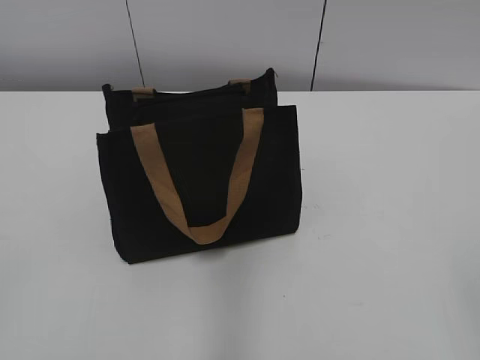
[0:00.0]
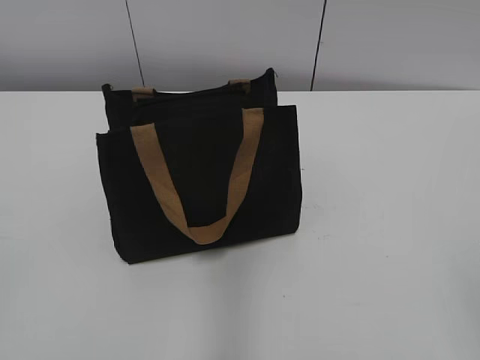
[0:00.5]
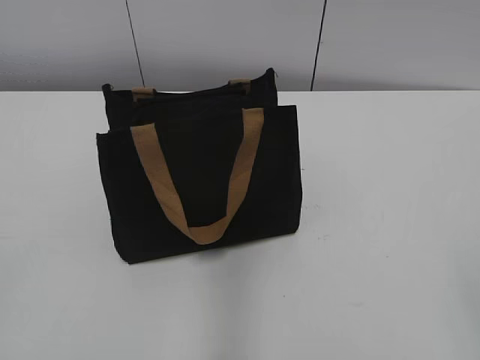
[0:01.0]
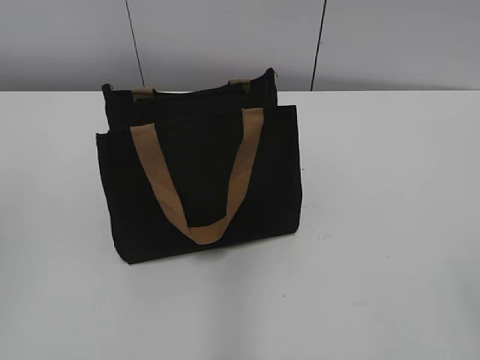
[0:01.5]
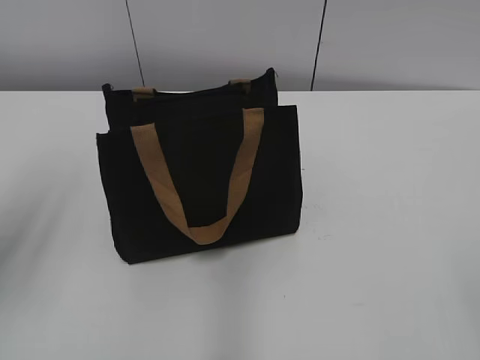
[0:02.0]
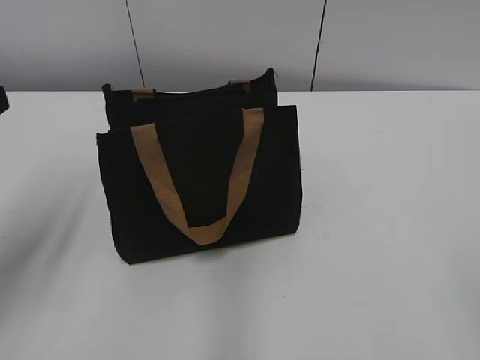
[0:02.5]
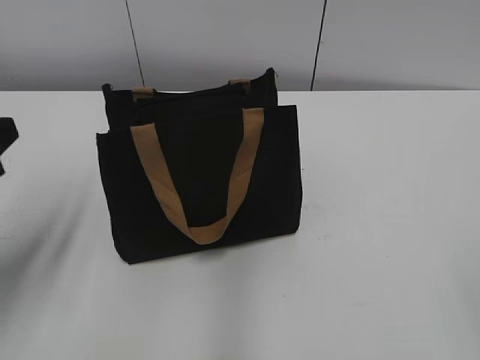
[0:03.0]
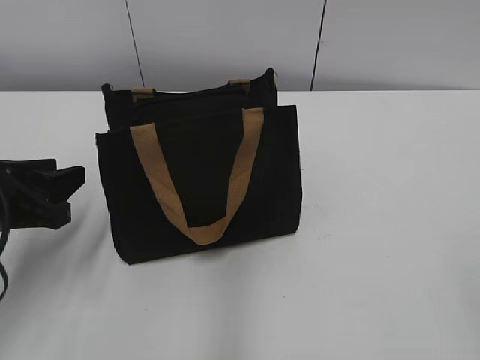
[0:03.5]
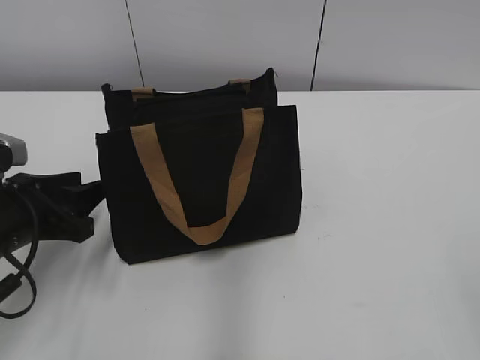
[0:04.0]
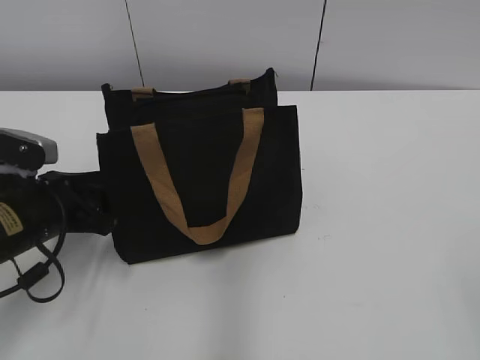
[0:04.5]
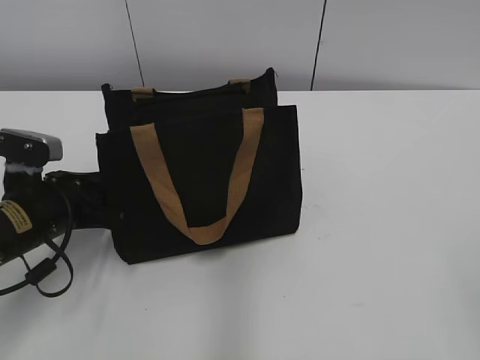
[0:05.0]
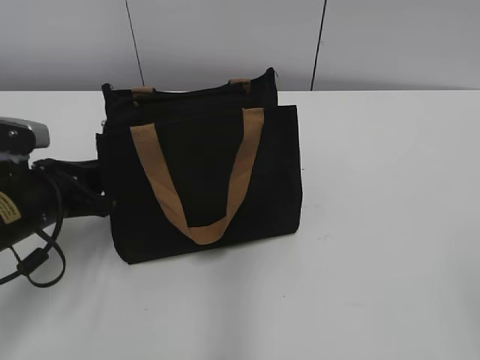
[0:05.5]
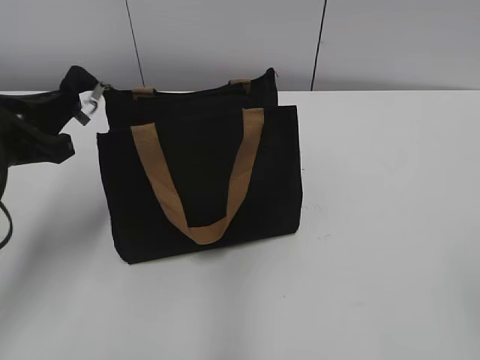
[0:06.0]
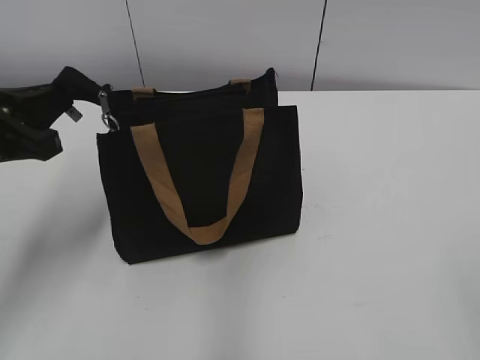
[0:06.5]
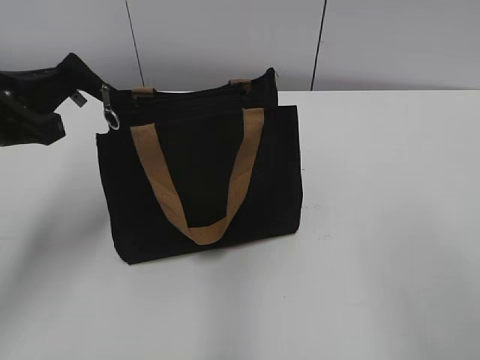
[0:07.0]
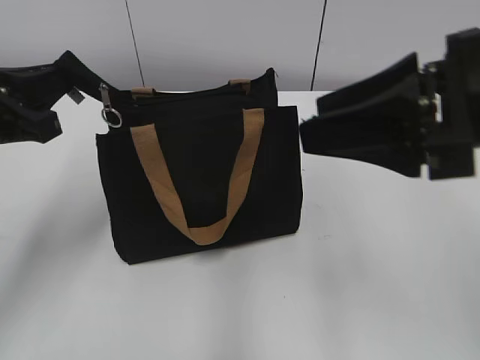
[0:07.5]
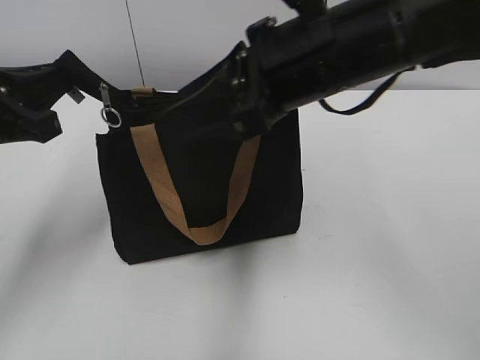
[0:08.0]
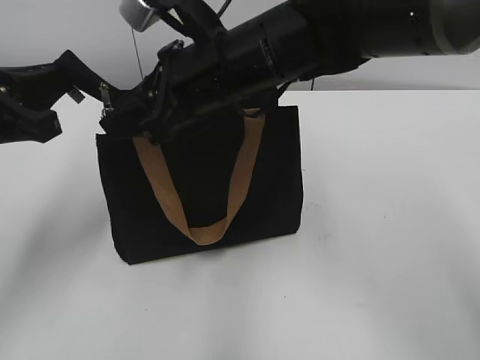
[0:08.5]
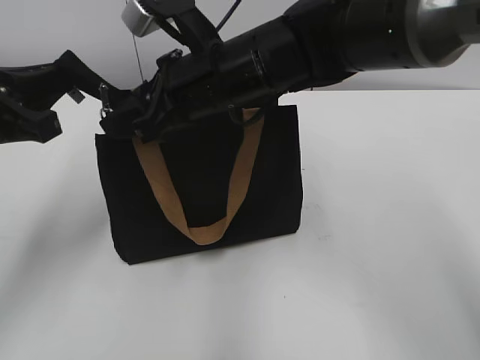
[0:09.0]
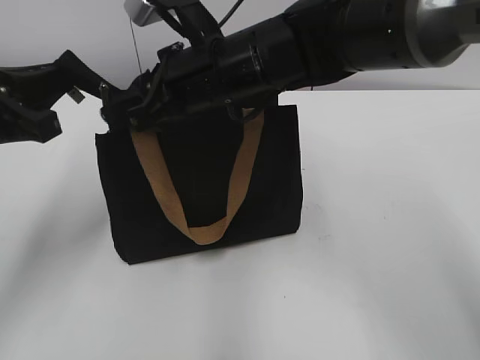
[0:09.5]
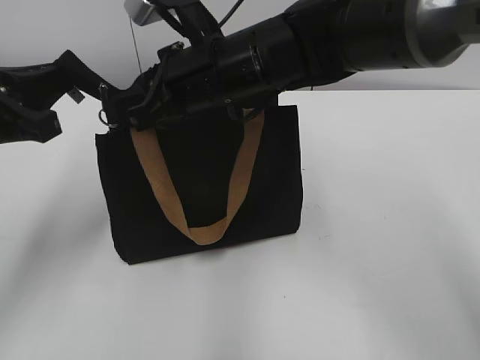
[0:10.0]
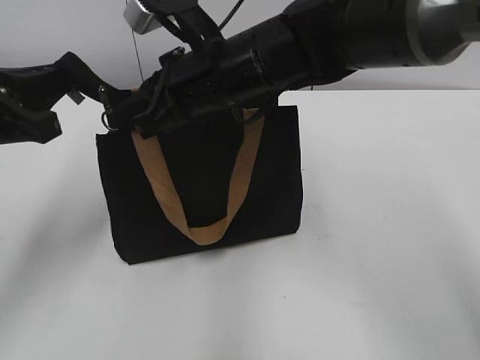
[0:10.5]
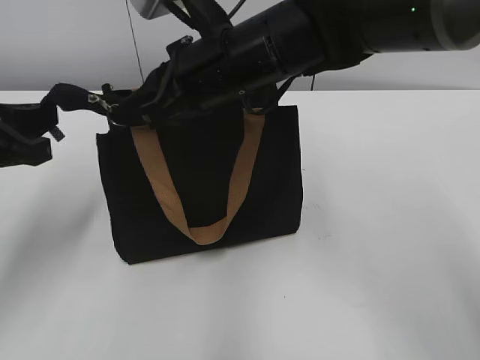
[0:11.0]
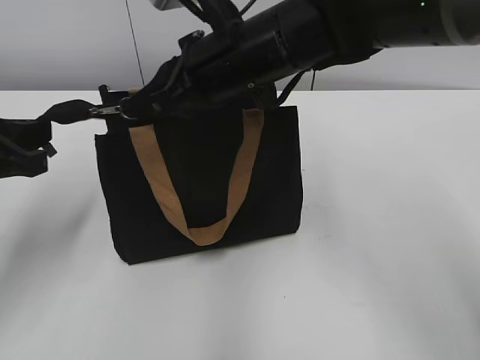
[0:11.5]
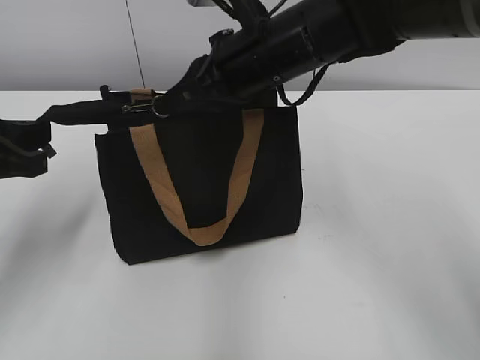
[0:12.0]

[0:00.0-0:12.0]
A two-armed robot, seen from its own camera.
0:02.0 to 0:04.0: The left gripper is displaced downward by some 20 cm.
0:04.0 to 0:06.0: The left gripper is displaced upward by some 10 cm, and closes up.
0:06.0 to 0:08.0: The right gripper moves forward and to the left, roughly 35 cm.
0:08.0 to 0:10.0: The right gripper shifts some 10 cm to the left, forward and downward, and closes its fingers.
0:10.0 to 0:12.0: The right gripper moves approximately 5 cm.

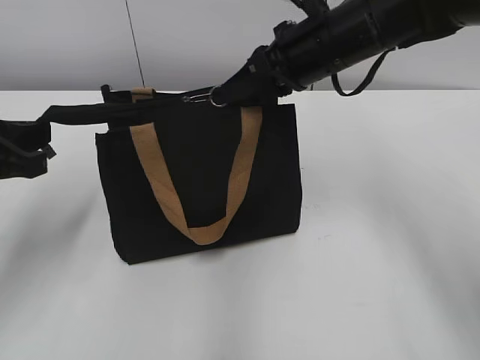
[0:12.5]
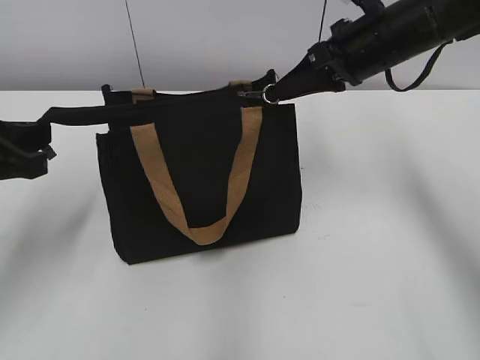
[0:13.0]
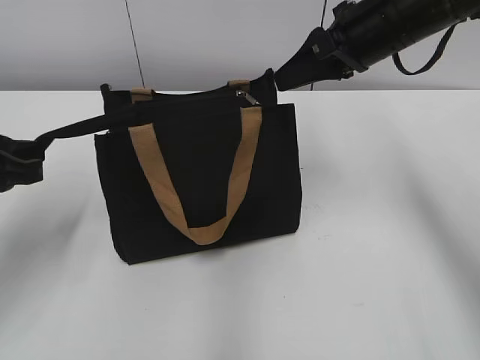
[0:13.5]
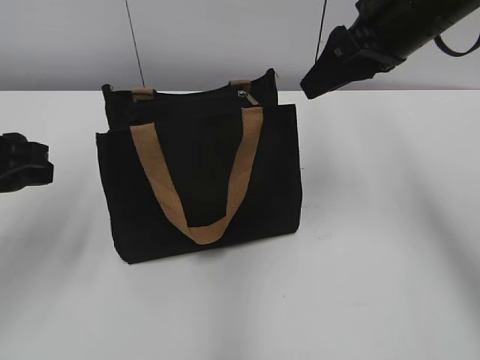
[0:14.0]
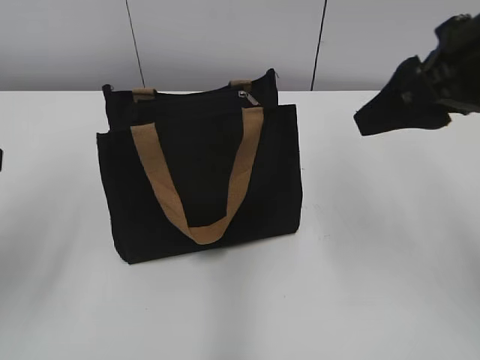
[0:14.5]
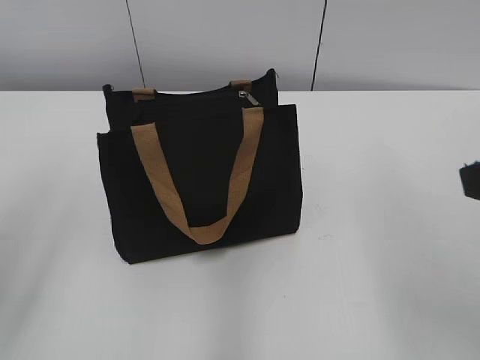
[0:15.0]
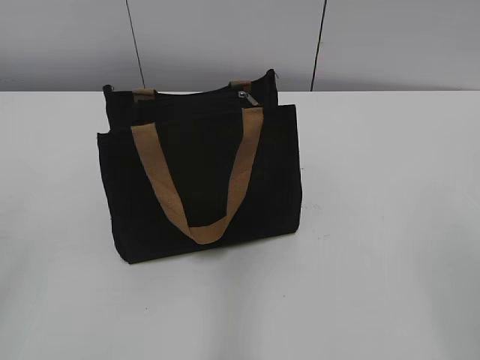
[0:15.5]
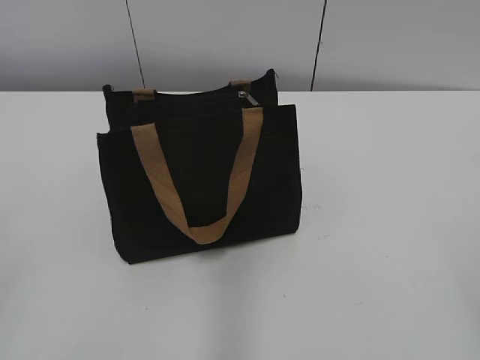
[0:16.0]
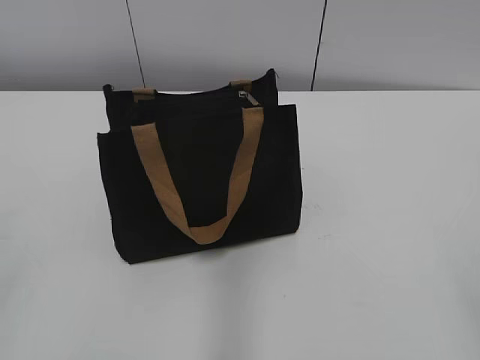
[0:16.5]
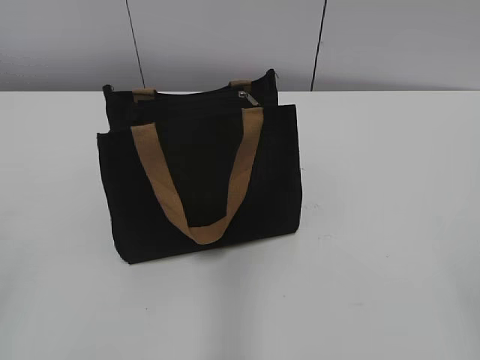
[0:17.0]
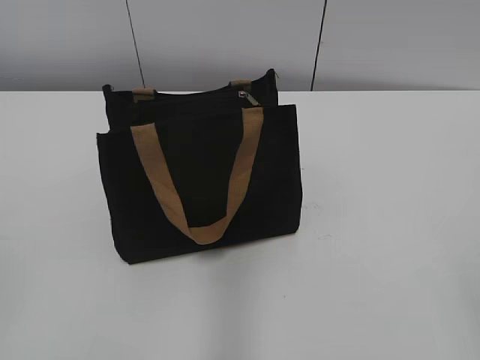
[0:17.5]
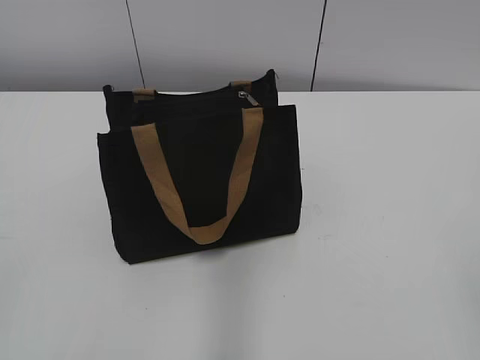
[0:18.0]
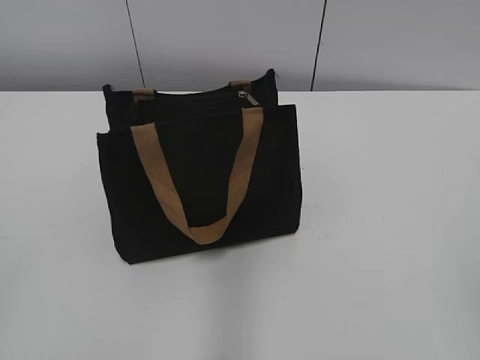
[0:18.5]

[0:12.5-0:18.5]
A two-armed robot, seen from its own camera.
0:12.5 to 0:14.5: The left gripper goes about 5 cm upward, and opens up, while the right gripper heads backward, to the right and upward, covering roughly 15 cm, and opens its fingers.
0:14.5 to 0:16.5: The right gripper heads backward, covering about 25 cm.

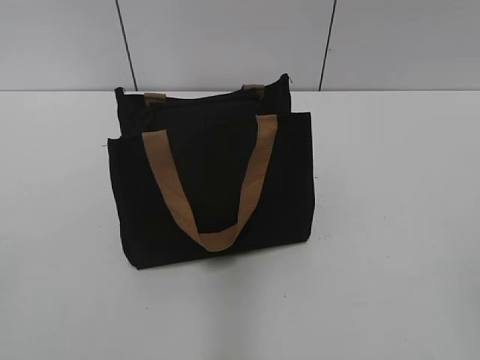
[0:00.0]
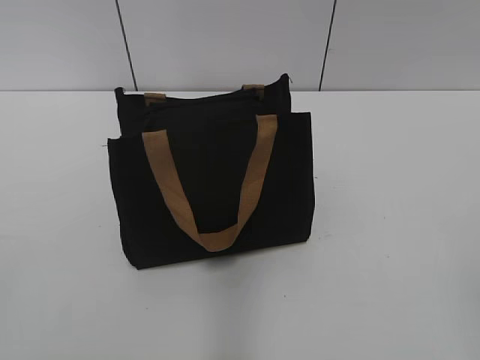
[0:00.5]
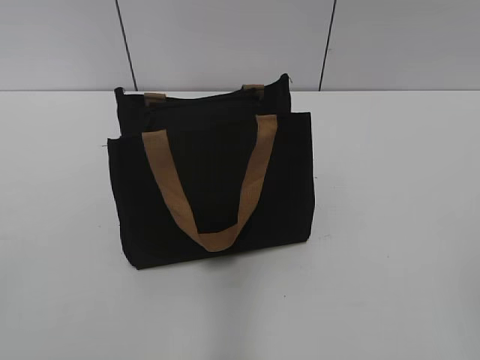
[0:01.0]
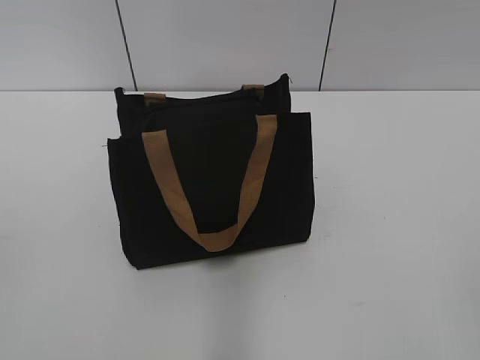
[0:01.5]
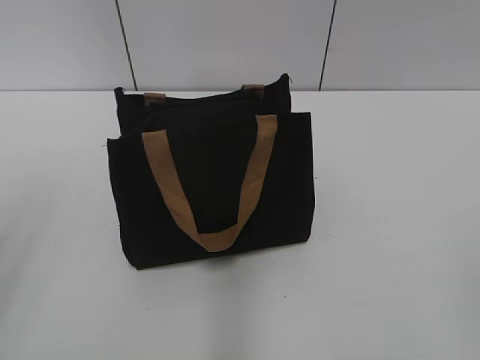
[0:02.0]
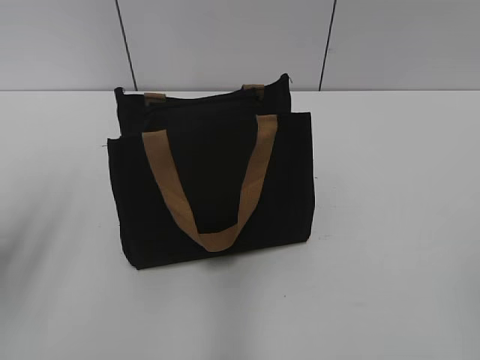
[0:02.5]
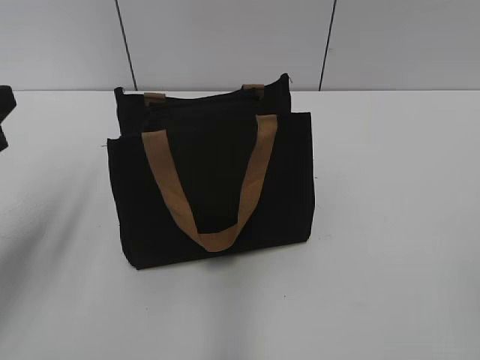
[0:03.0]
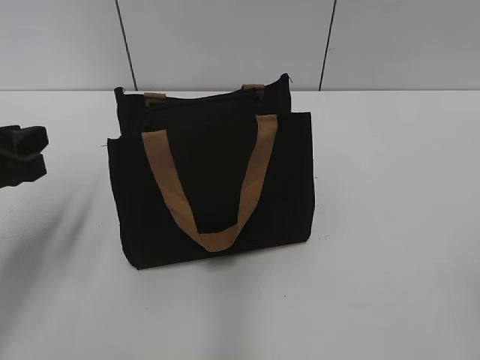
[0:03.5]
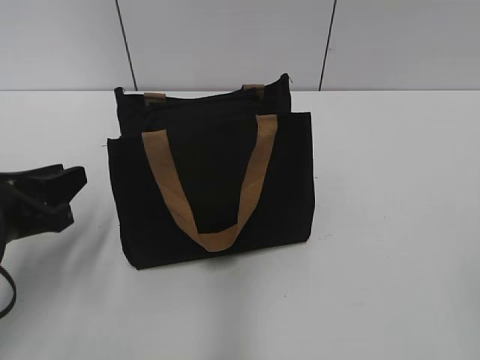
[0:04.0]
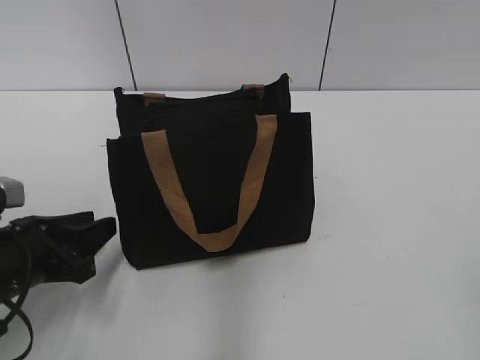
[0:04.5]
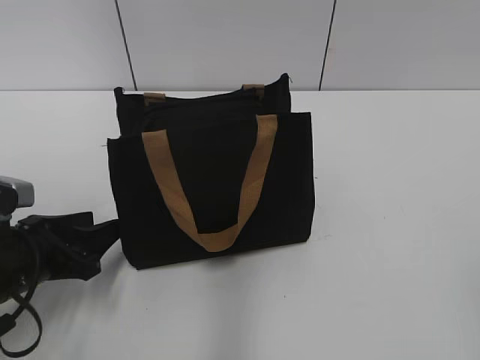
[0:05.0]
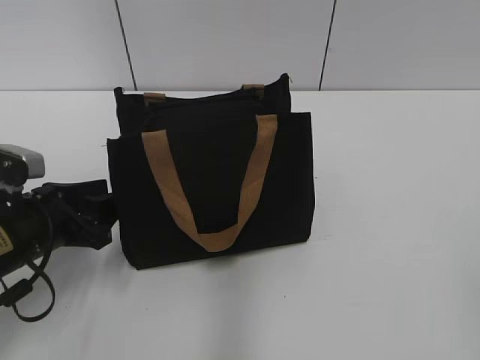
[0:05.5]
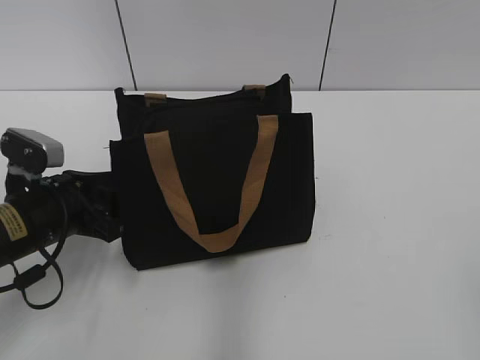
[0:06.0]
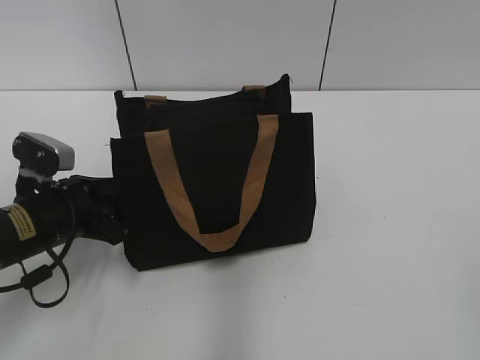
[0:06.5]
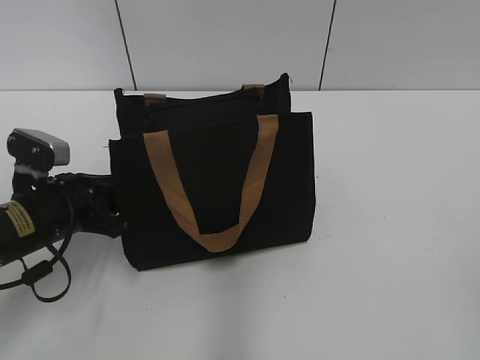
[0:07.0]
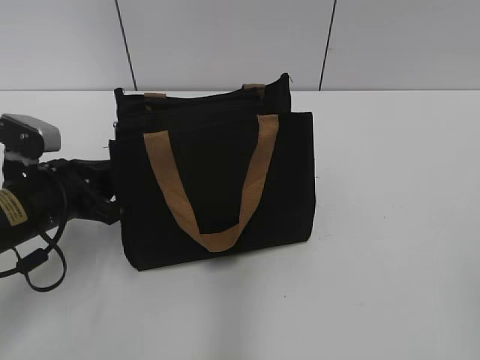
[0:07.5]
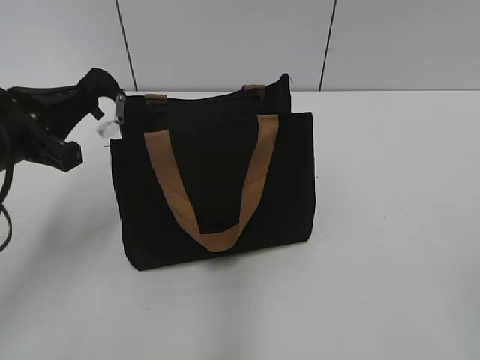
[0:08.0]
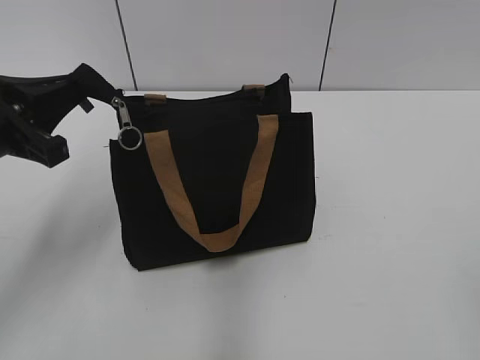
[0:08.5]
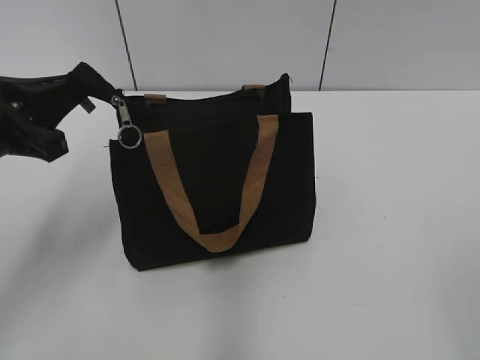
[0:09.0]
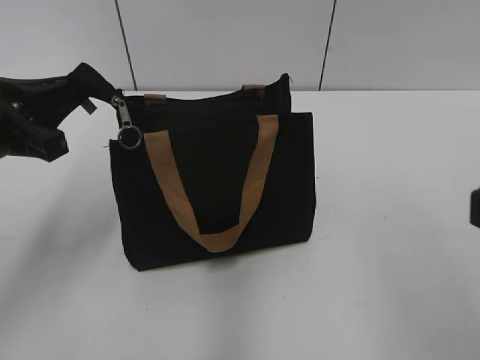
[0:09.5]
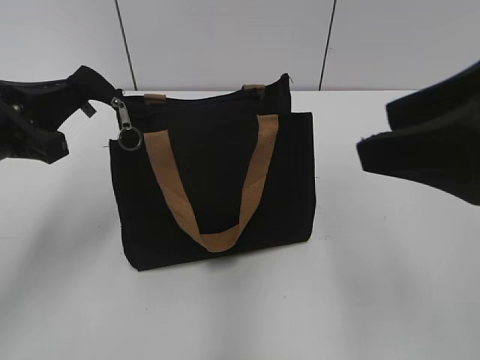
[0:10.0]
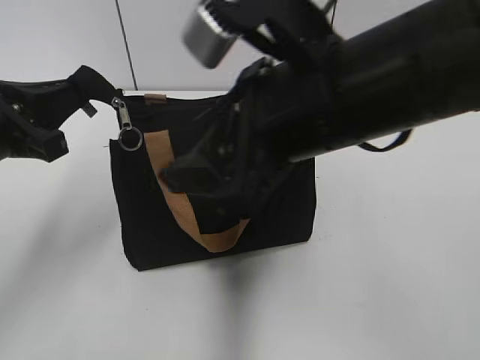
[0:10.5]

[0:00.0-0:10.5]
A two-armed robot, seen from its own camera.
0:02.0 to 0:04.0: The left gripper travels downward and forward by roughly 20 cm.
0:04.0 to 0:06.5: The left gripper moves downward, roughly 5 cm.
0:06.5 to 0:08.5: The left gripper moves upward, about 15 cm, and closes.
0:08.5 to 0:10.5: The right gripper shifts some 30 cm forward and to the left.
